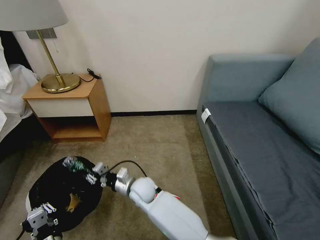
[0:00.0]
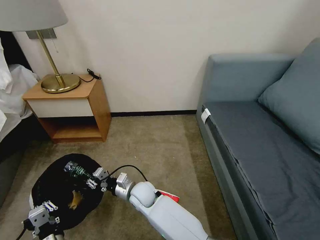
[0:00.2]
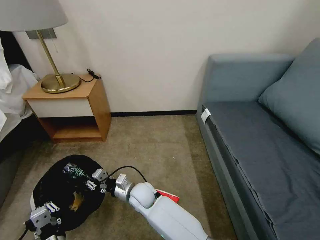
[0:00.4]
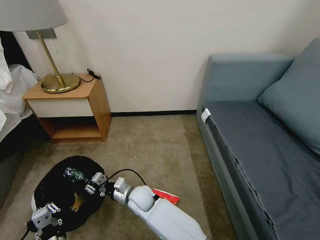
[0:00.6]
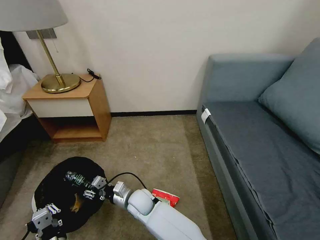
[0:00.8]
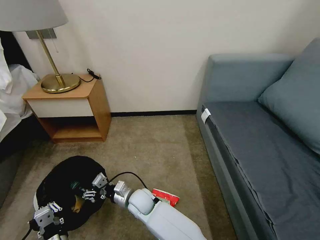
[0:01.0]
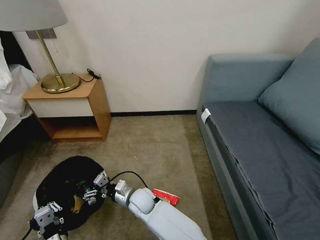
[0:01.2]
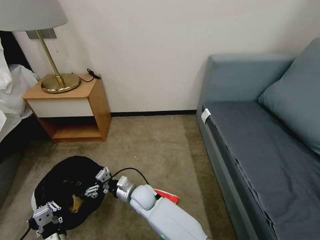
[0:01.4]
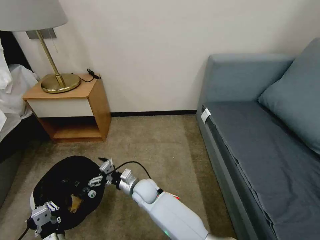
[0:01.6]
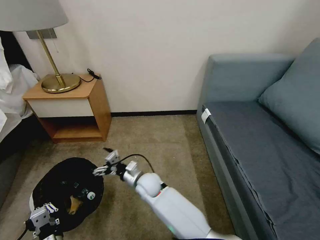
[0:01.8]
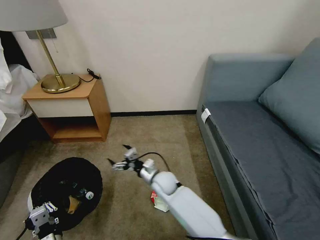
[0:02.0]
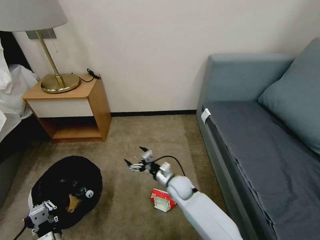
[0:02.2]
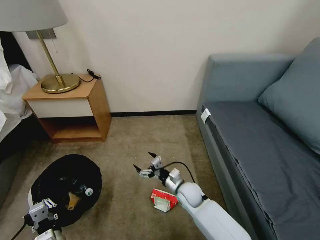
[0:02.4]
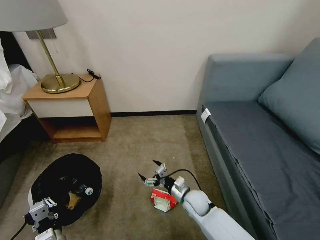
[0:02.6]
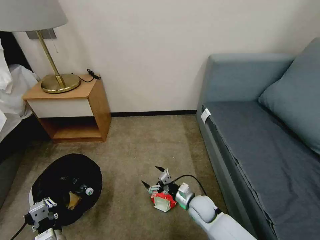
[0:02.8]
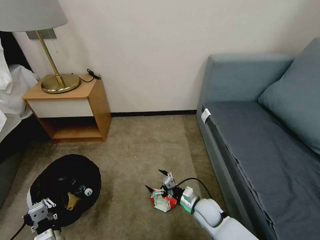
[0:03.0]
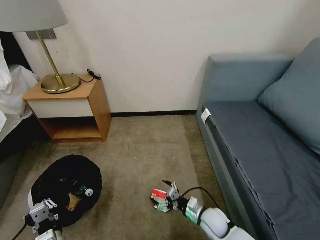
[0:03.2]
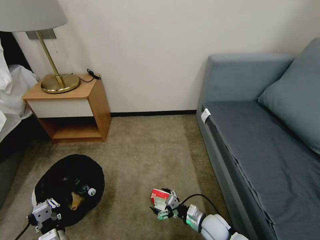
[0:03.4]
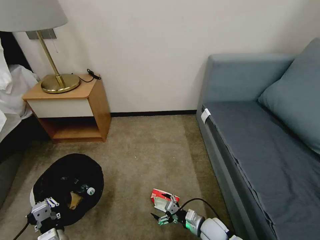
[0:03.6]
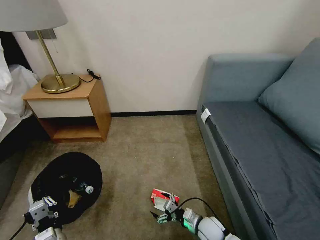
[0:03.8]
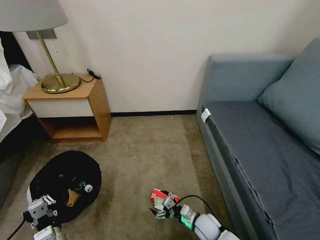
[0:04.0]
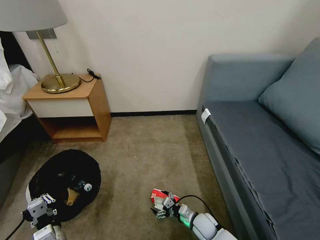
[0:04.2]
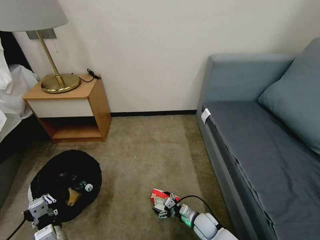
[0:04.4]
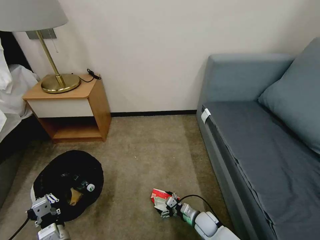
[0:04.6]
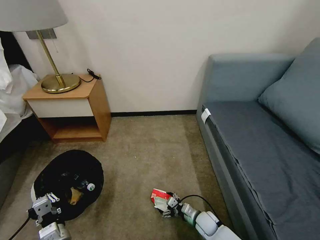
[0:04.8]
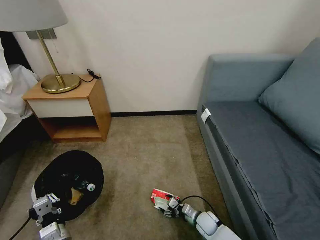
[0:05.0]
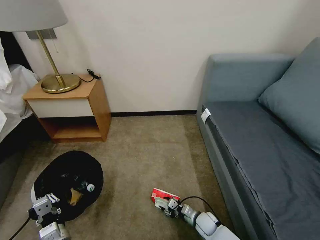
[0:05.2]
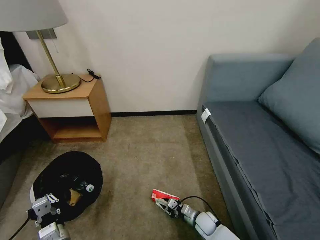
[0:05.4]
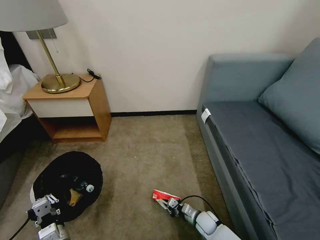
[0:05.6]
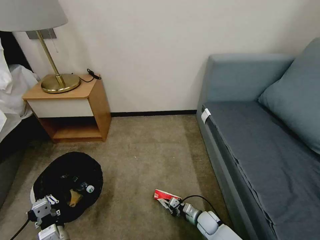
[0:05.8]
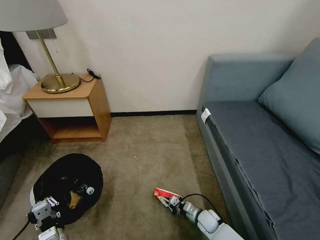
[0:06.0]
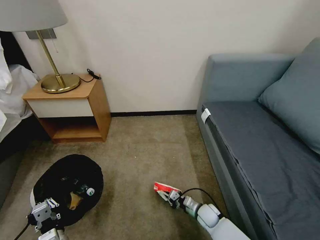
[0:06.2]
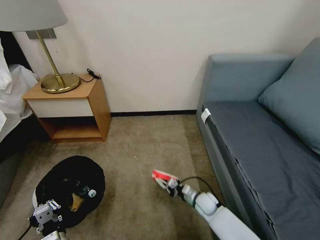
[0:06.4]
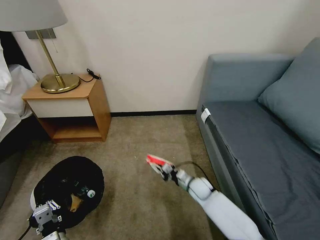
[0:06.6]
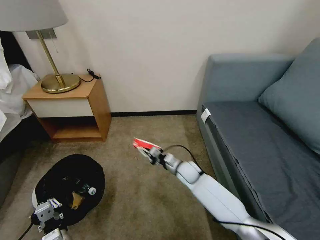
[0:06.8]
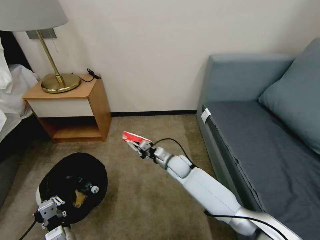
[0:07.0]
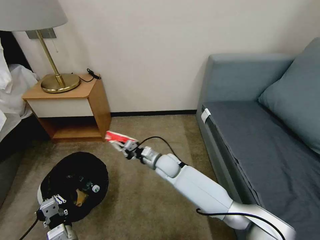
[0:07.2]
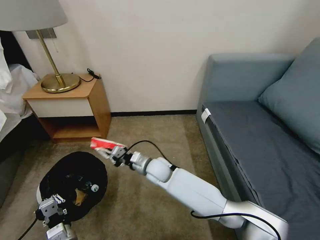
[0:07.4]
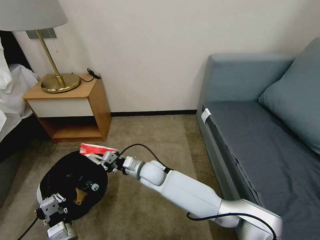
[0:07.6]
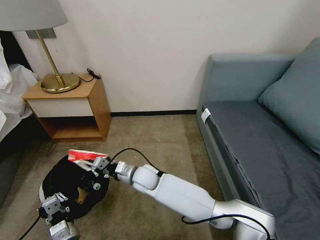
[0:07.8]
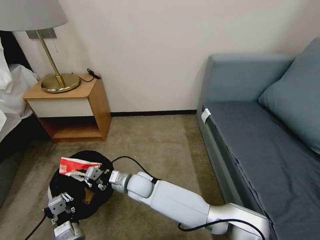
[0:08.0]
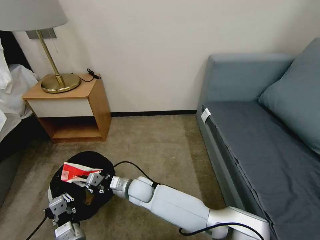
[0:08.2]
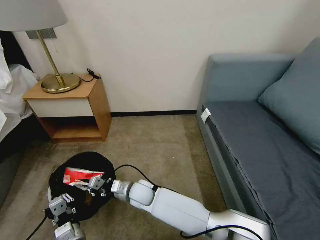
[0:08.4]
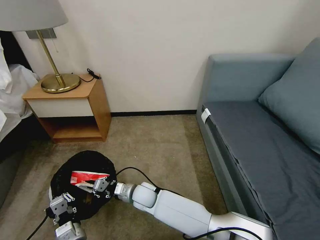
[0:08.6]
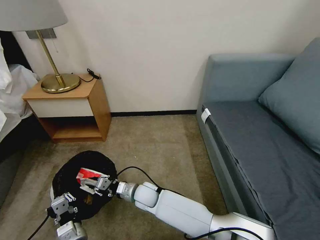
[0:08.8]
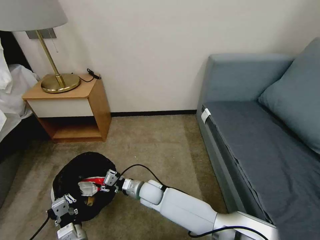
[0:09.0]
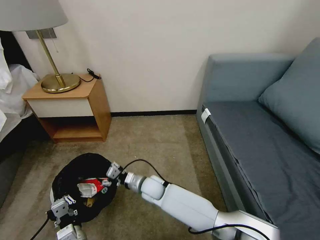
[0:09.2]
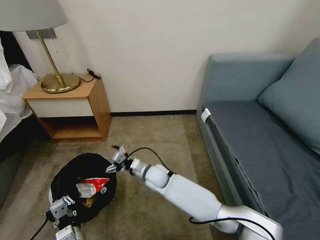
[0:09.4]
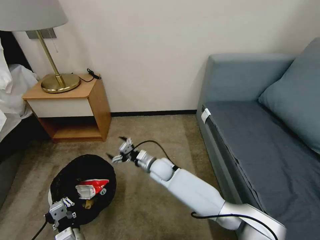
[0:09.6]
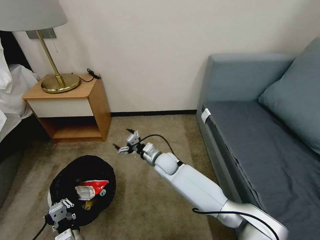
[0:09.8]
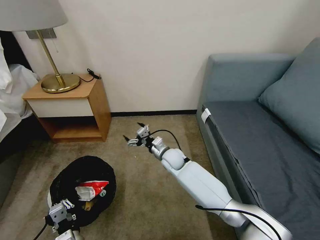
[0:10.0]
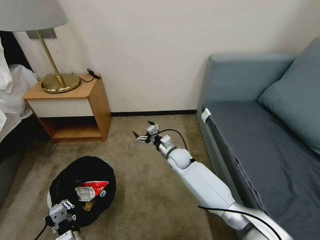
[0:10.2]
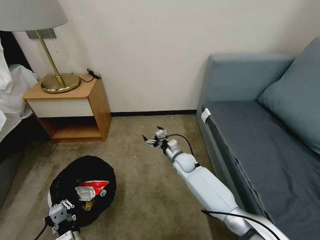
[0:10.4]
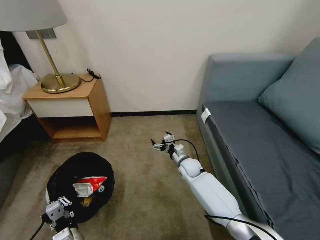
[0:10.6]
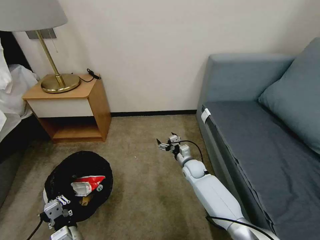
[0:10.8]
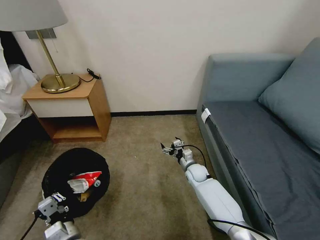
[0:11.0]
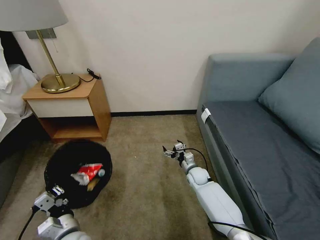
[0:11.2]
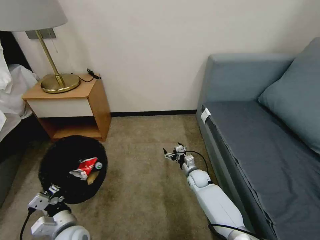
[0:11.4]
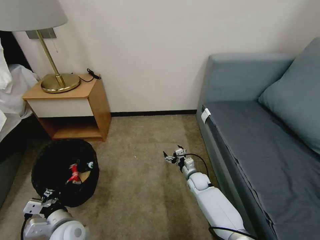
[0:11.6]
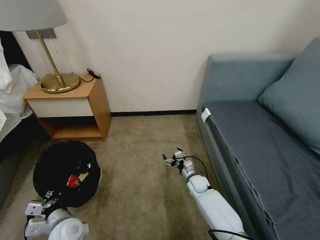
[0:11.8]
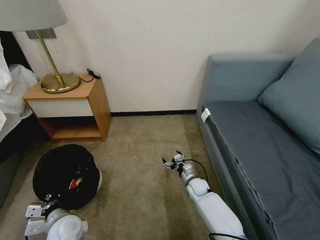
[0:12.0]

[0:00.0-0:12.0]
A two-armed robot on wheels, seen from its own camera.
Task of the whole recording: Pick up the trash bin, then pick up the garbage on the floor and place it into the trash bin.
0:00.0 to 0:01.6: The right gripper opens its fingers.
0:01.6 to 0:03.0: The right gripper moves to the right, roughly 25 cm.
0:03.0 to 0:04.4: The right gripper travels downward by approximately 10 cm.
0:04.4 to 0:06.0: The right gripper closes.
0:06.0 to 0:07.6: The right gripper moves to the left, upward and forward, some 35 cm.
0:07.6 to 0:09.0: The right gripper shifts approximately 10 cm downward, and opens.
0:09.0 to 0:10.4: The right gripper goes roughly 20 cm to the right and forward, and opens its fingers.
0:10.4 to 0:12.0: The right gripper heads downward, to the right and backward, covering about 15 cm. Meanwhile the left gripper travels forward and to the left by roughly 10 cm.

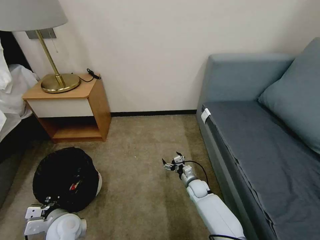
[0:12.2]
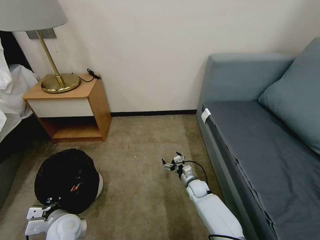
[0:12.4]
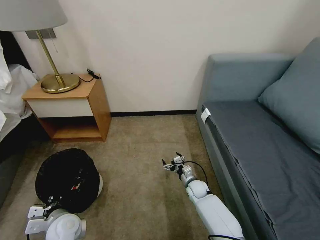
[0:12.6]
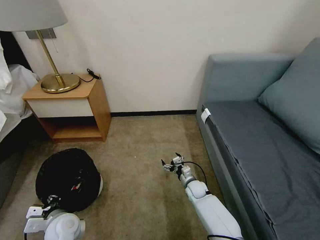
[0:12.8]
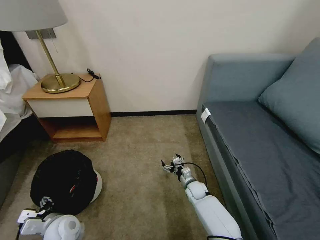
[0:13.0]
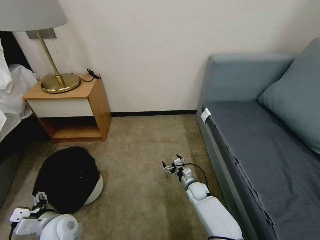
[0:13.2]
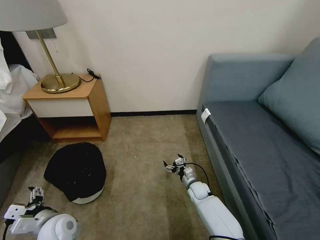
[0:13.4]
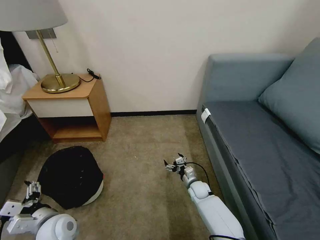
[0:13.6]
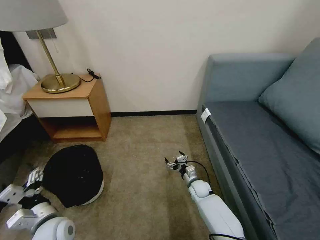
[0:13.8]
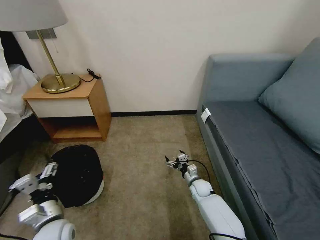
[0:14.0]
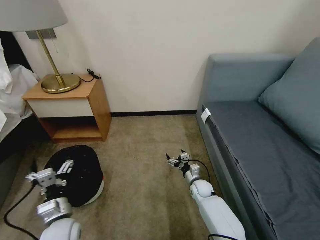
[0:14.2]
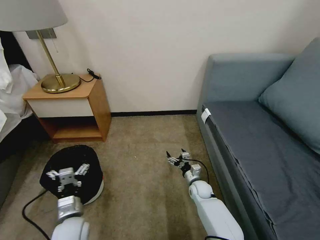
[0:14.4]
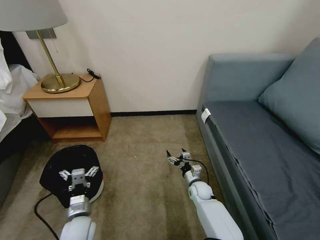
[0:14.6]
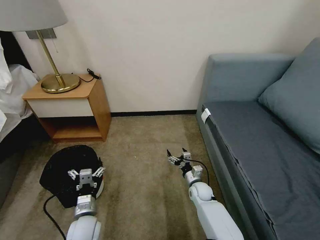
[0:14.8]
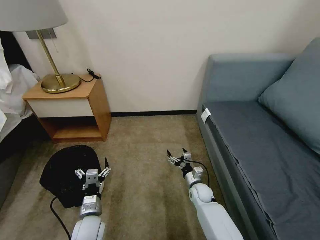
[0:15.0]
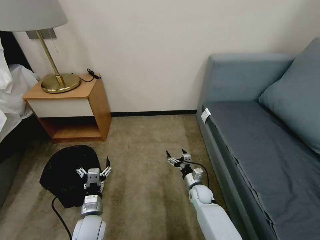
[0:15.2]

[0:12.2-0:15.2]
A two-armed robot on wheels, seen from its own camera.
Task of the whole recording: Pick up the trash bin, then pick up the garbage on the floor and place it into the trash bin.
0:12.2 to 0:13.8: The left gripper ends up approximately 5 cm from where it was, and opens up.
0:13.8 to 0:15.2: The left gripper travels downward and to the right by about 10 cm.
